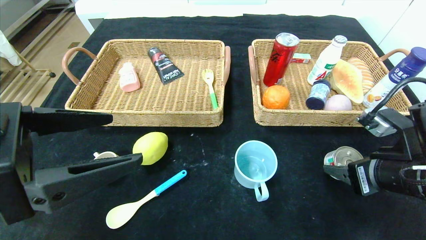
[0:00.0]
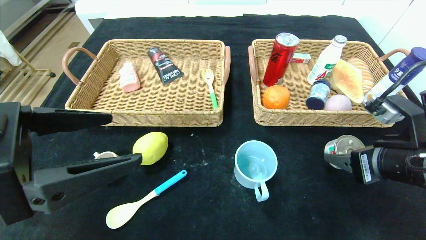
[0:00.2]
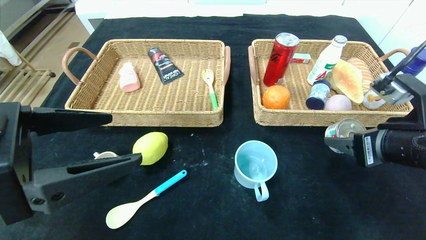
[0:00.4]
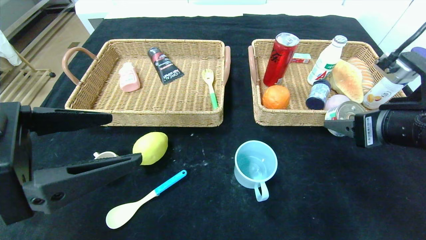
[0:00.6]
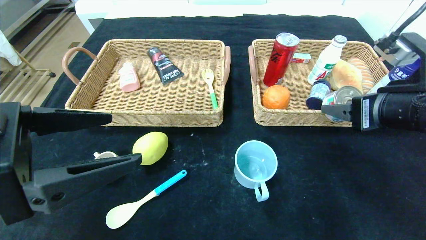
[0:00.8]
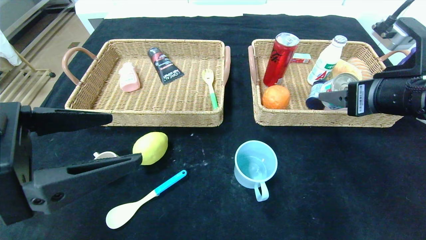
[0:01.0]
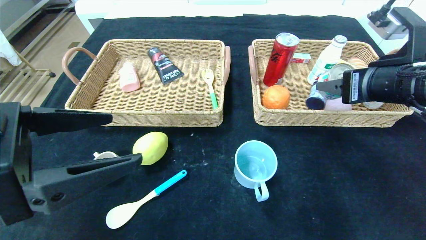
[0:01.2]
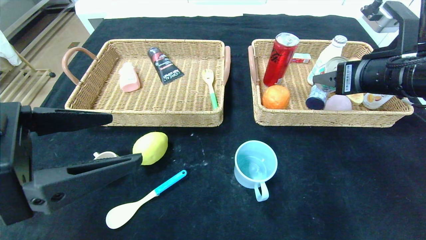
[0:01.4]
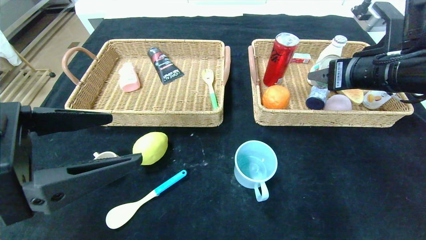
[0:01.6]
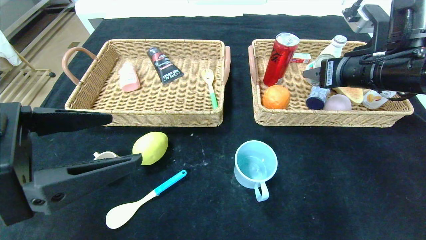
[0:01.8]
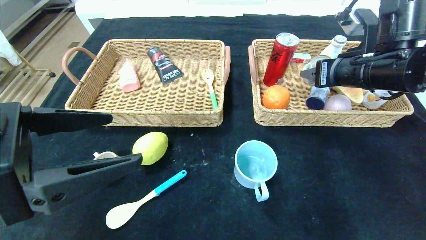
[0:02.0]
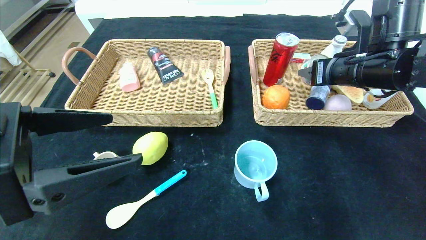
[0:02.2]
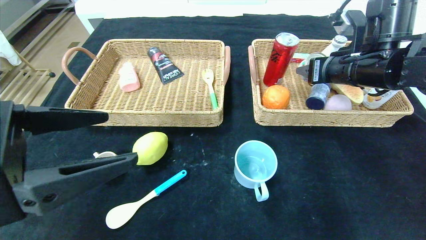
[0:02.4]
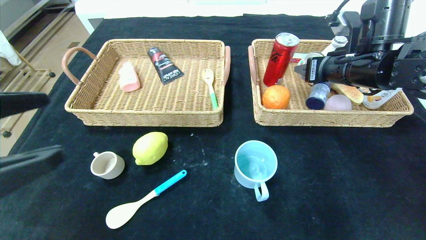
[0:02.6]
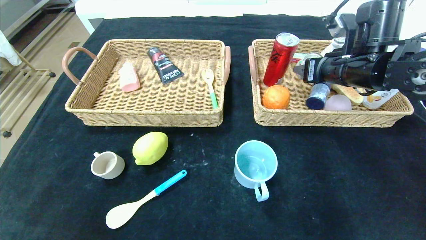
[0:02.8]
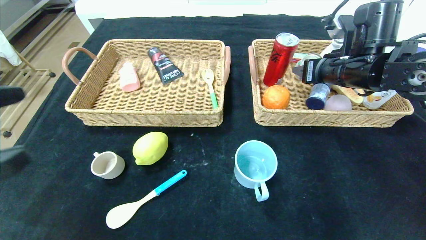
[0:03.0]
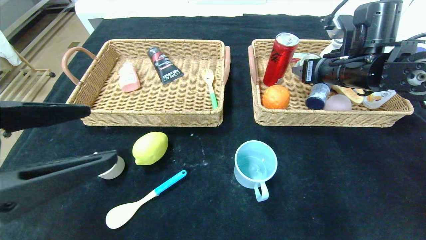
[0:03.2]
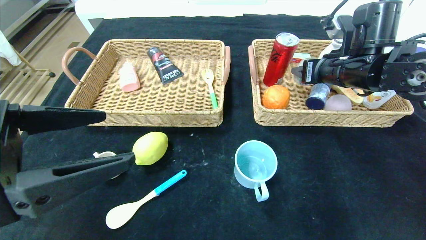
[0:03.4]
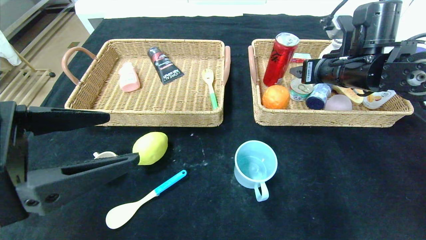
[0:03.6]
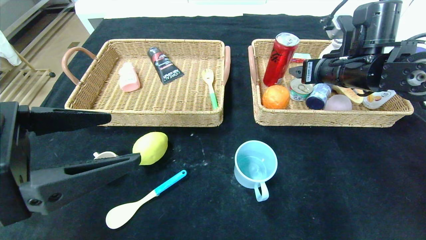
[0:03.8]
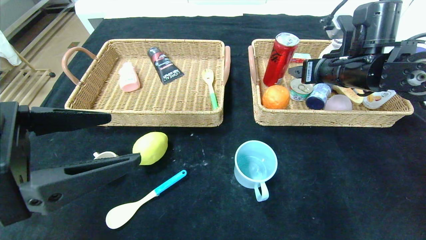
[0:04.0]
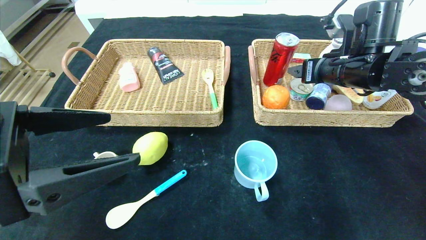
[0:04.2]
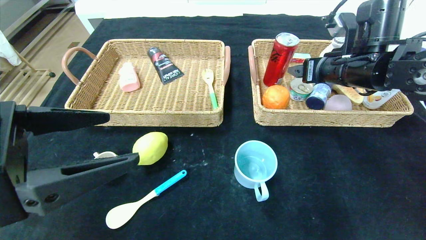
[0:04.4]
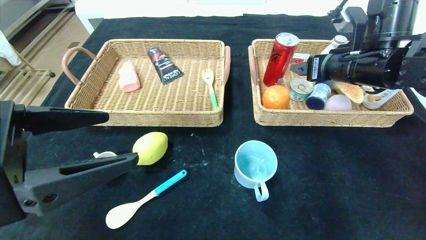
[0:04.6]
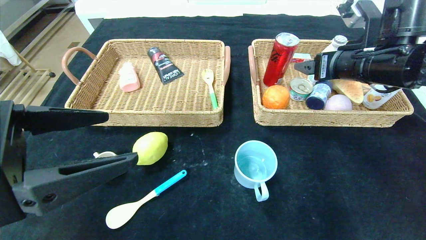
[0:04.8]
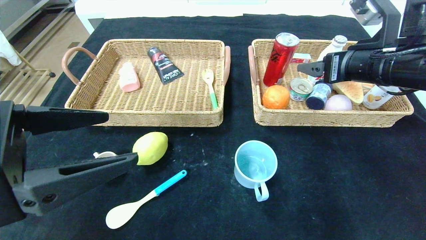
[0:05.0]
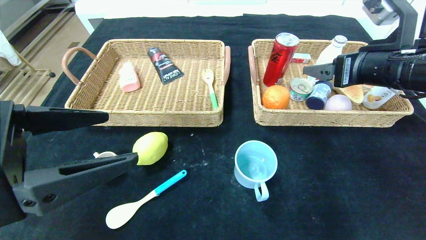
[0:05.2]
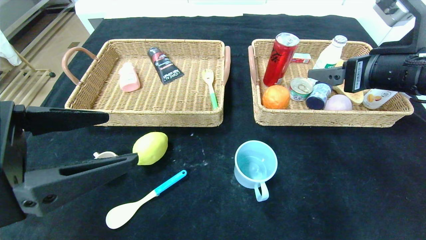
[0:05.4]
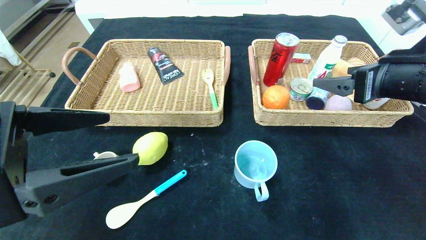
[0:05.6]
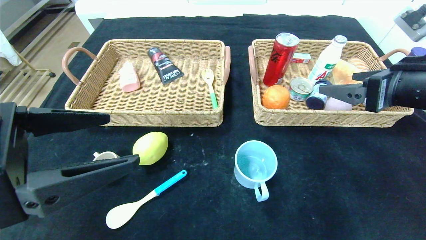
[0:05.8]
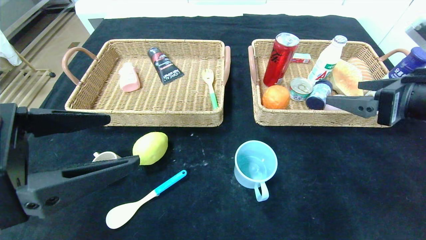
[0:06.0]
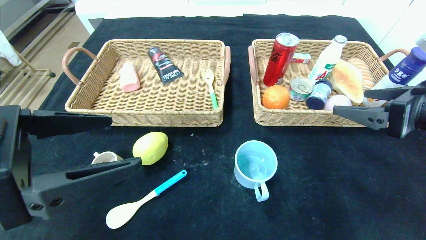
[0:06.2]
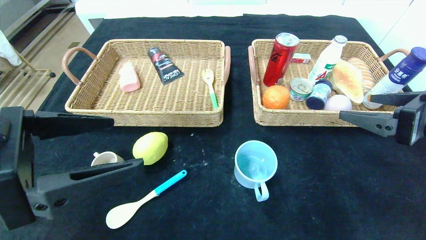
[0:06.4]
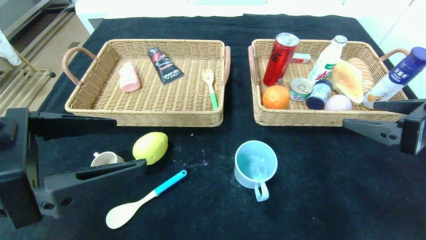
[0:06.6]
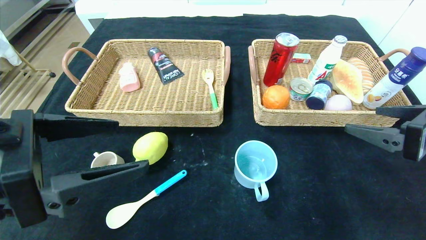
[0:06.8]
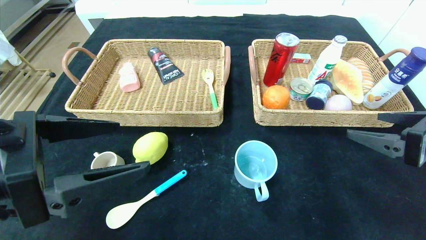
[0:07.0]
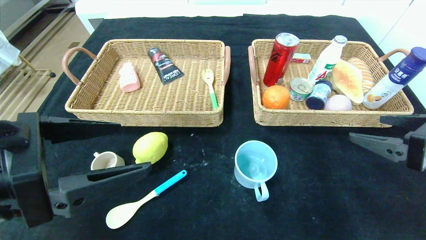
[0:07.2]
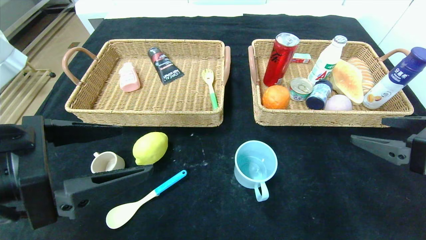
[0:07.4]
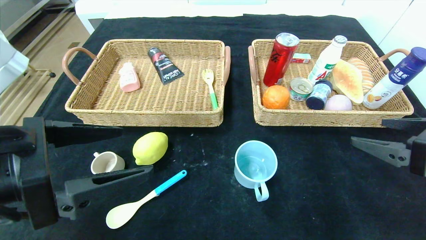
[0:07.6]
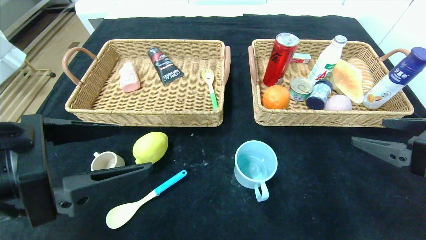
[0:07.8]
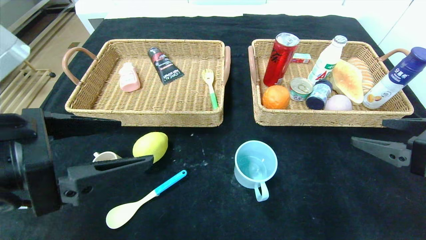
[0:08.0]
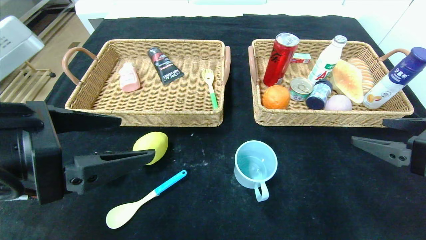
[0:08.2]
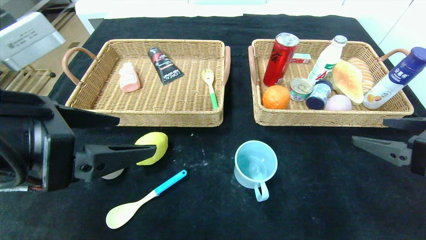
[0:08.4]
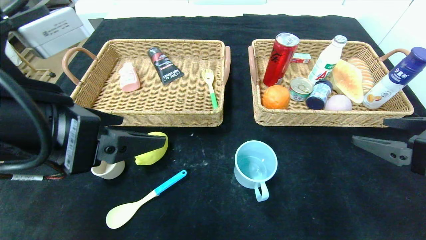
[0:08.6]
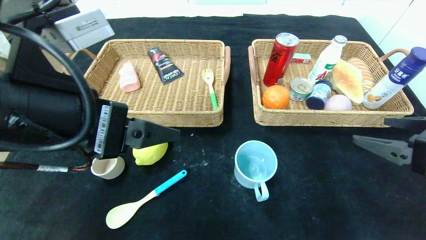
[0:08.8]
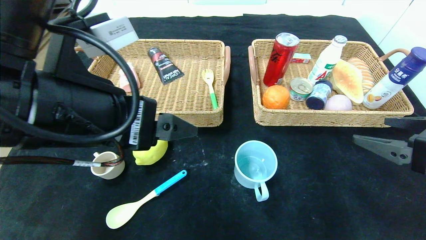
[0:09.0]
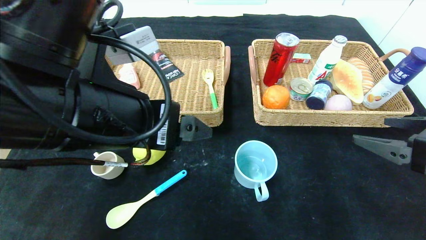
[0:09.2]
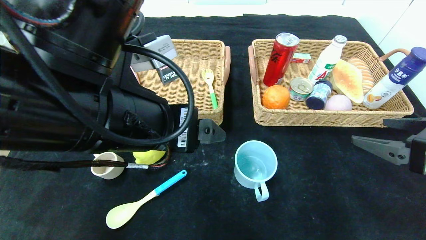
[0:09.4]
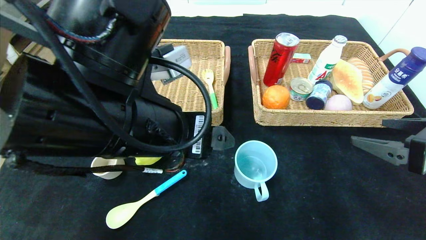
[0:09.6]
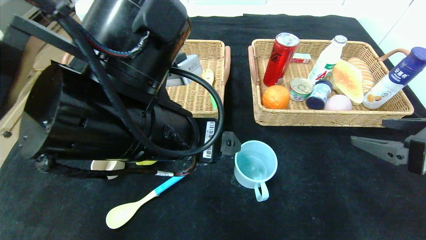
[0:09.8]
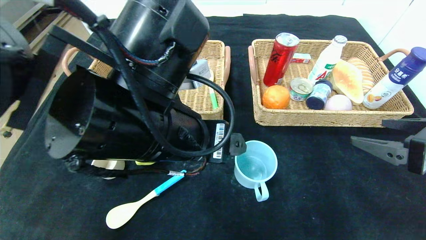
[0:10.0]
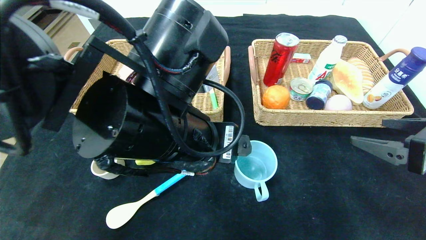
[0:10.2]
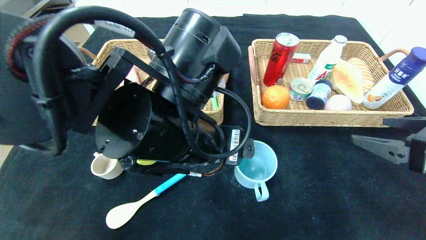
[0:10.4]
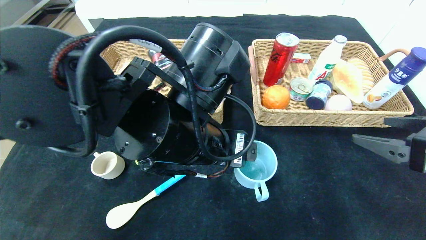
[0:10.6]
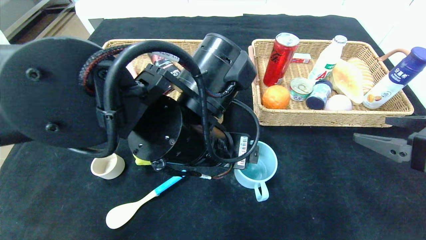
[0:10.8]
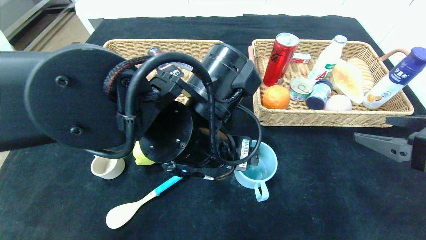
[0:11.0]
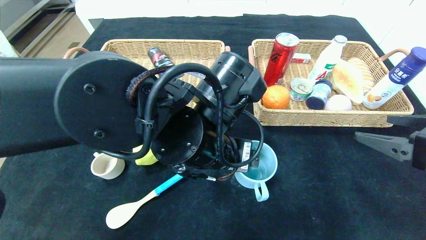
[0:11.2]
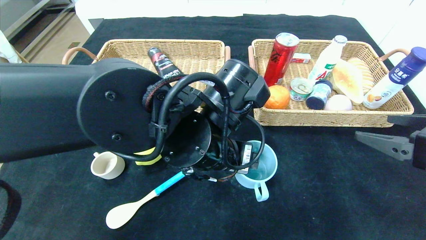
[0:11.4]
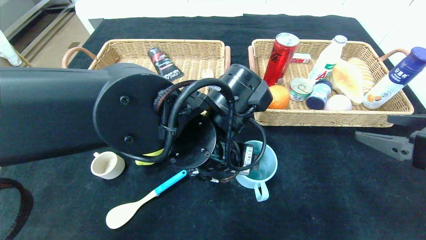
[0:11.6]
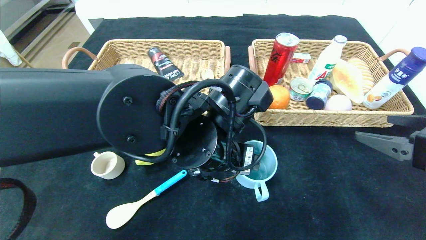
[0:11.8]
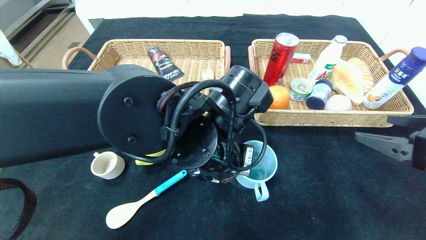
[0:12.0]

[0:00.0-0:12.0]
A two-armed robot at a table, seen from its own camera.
Step, 0:00.0 to 0:03.8: Grasp the can and put it in the right basket.
0:00.0 to 0:01.6: The right gripper travels upward and forward by some 15 cm.
0:01.6 to 0:03.0: The left gripper travels backward by about 5 cm. Meanwhile the right gripper travels forward by roughly 10 cm.
0:03.0 to 0:04.4: The right gripper opens its fingers, while the left gripper ends up roughly 5 cm from where it was.
0:04.4 to 0:06.0: The right gripper moves backward and to the right, roughly 15 cm.
0:06.0 to 0:07.6: The right gripper ends up some 5 cm from where it was.
0:07.6 to 0:09.0: The left gripper is displaced to the right by about 5 cm.
0:09.0 to 0:10.4: The left gripper moves to the right, some 10 cm.
0:10.4 to 0:12.0: The left gripper moves roughly 5 cm.

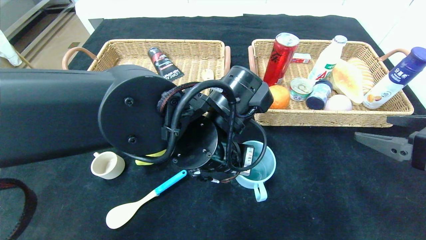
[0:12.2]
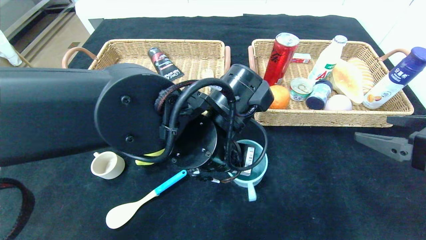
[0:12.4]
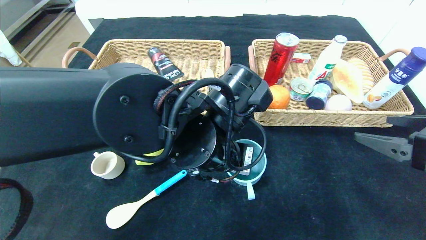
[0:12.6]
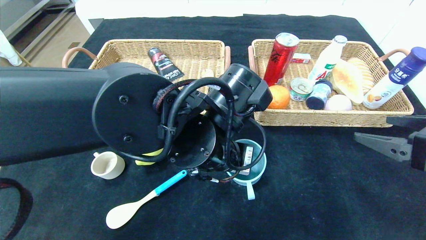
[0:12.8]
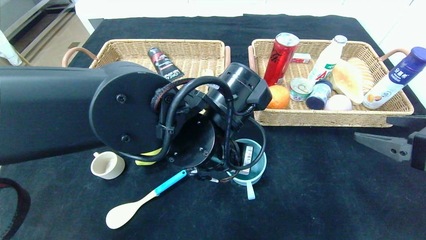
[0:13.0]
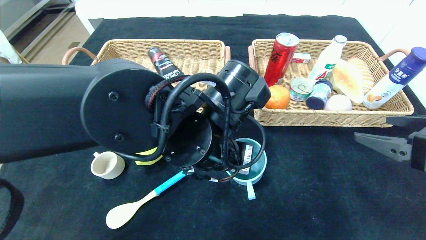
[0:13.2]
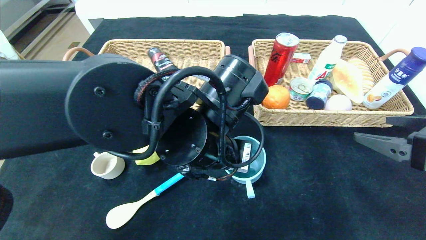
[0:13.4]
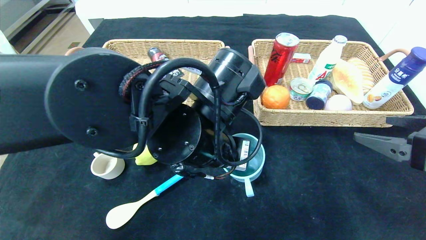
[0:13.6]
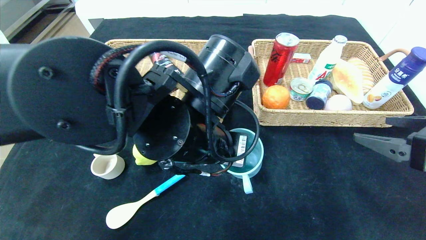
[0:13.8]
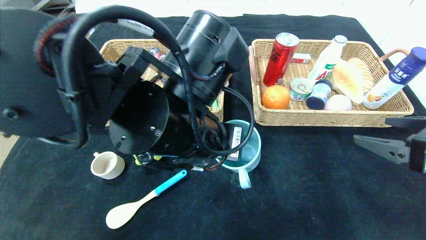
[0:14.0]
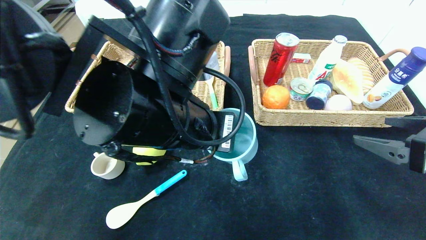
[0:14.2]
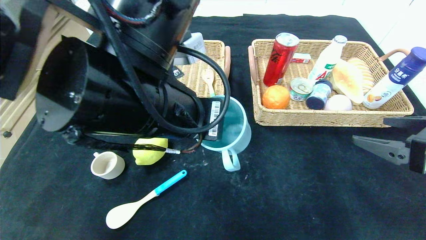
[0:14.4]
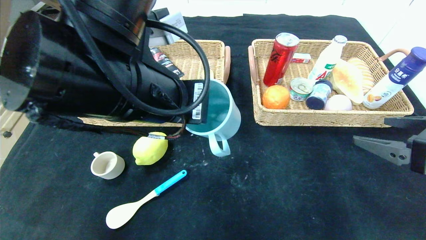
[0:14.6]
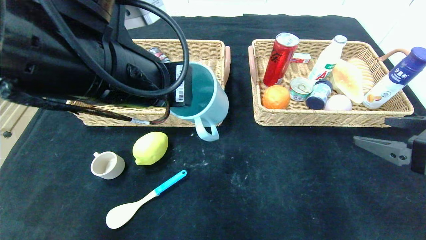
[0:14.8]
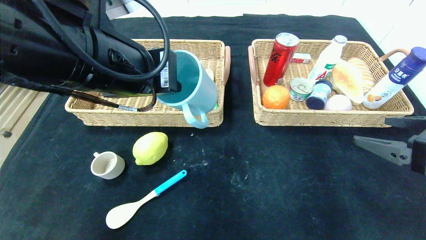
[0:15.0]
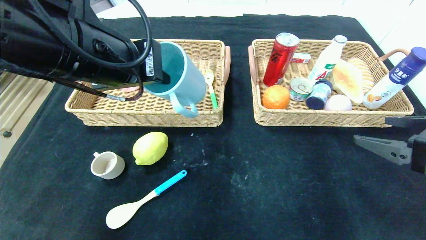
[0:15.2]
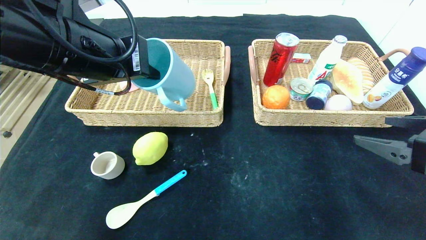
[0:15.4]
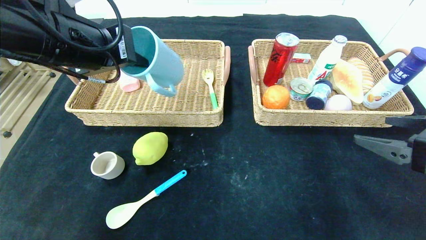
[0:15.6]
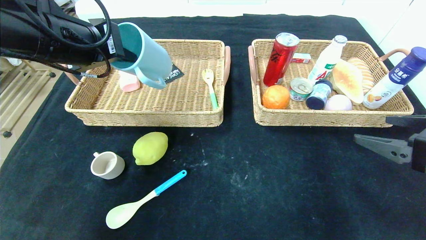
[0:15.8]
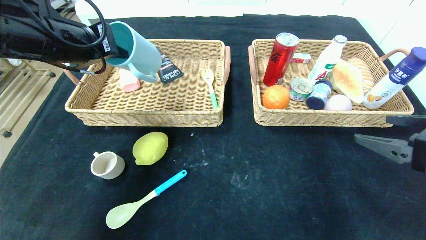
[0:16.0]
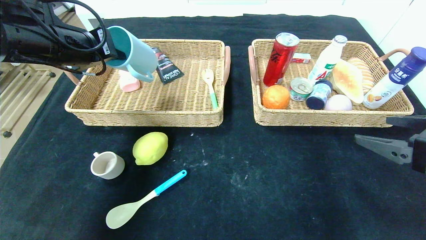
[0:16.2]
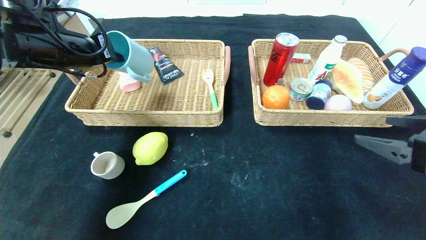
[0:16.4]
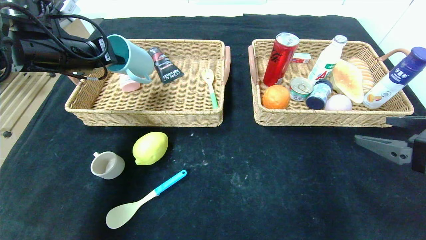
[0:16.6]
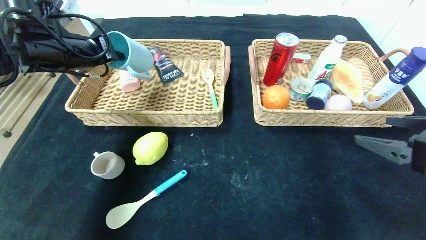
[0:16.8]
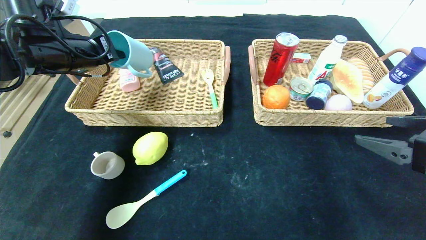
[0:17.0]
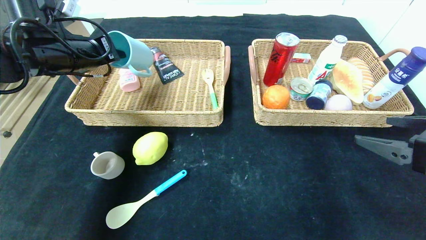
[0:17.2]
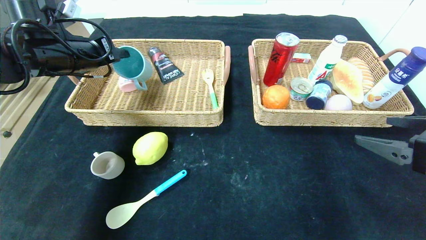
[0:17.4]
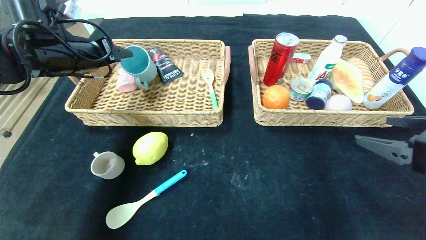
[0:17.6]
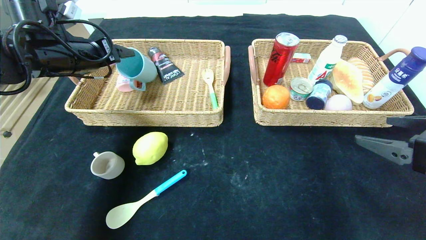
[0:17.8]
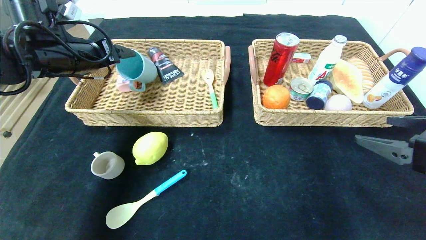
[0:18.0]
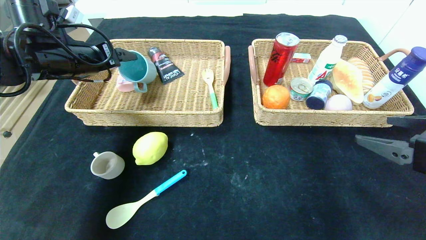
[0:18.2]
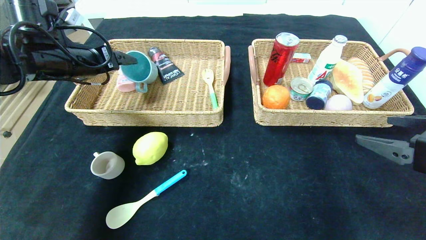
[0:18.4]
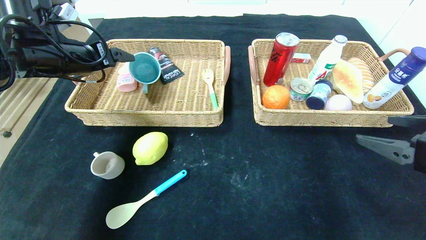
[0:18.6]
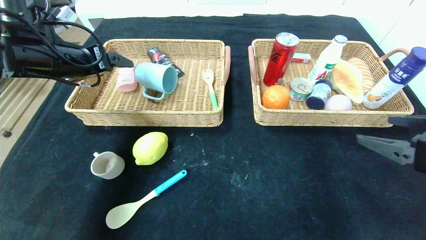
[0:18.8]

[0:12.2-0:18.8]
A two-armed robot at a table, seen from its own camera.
0:12.2 to 0:13.8: The left gripper closes up.
0:13.8 to 0:15.4: The left gripper travels to the left and upward by roughly 15 cm.
0:15.4 to 0:17.2: The left gripper travels forward and to the left by approximately 20 cm.
0:17.2 to 0:18.8: The left gripper opens its fingers.
